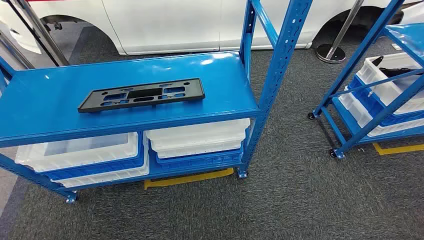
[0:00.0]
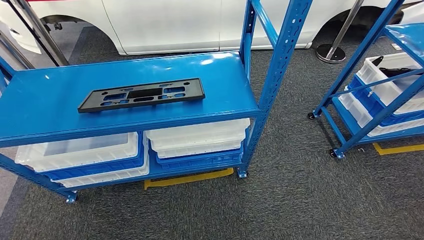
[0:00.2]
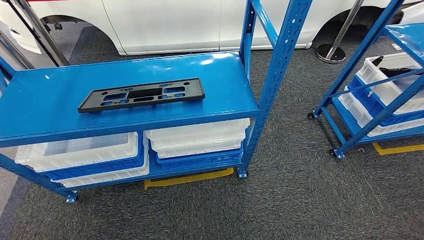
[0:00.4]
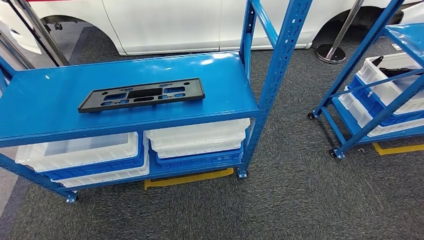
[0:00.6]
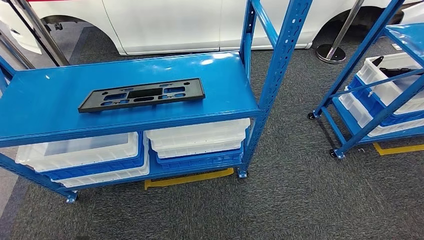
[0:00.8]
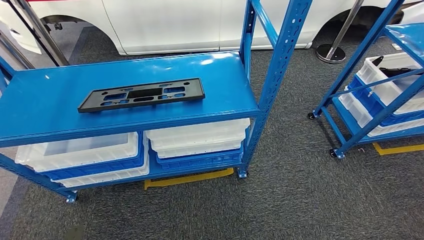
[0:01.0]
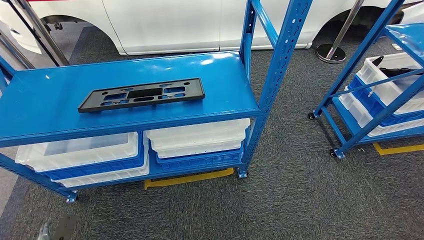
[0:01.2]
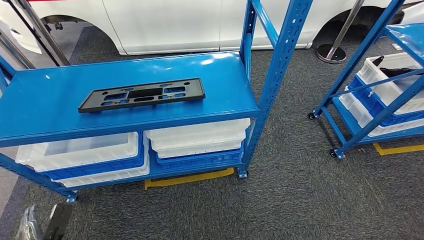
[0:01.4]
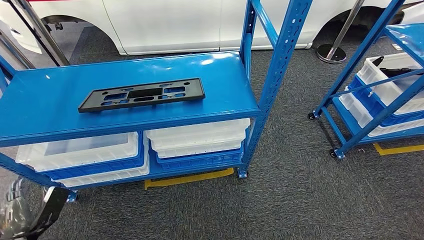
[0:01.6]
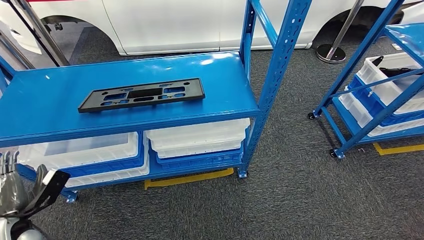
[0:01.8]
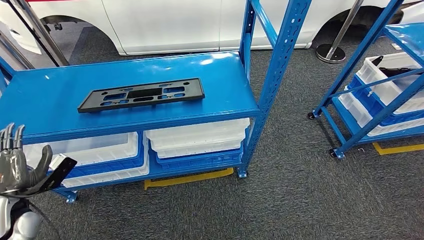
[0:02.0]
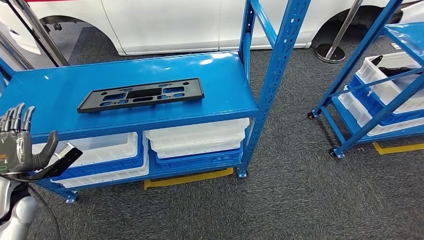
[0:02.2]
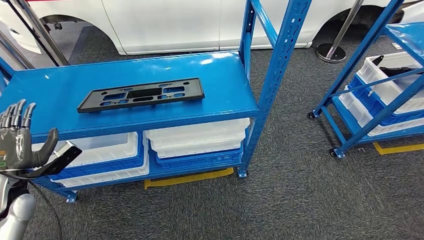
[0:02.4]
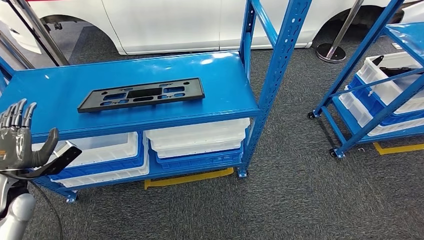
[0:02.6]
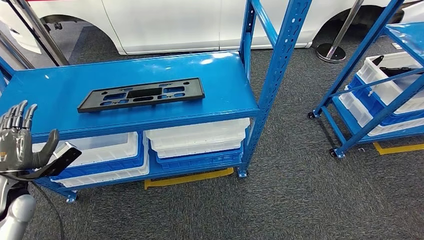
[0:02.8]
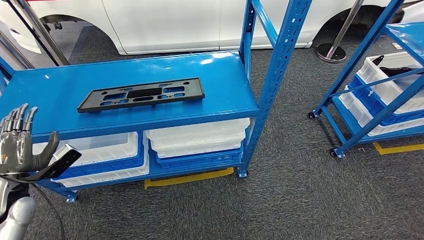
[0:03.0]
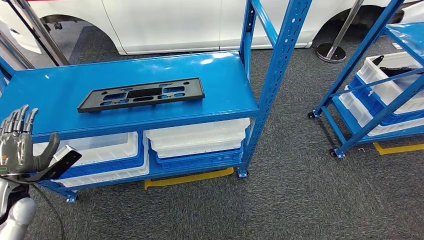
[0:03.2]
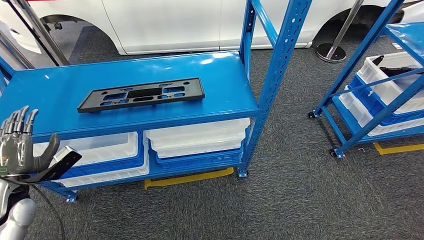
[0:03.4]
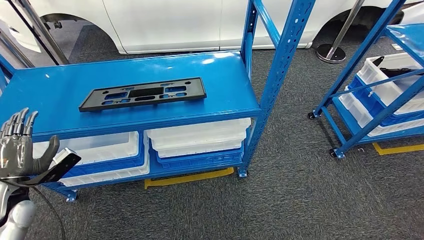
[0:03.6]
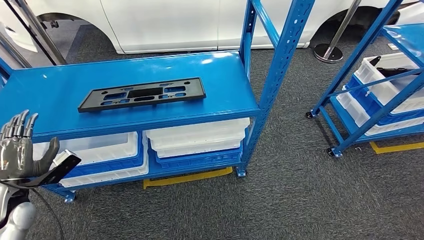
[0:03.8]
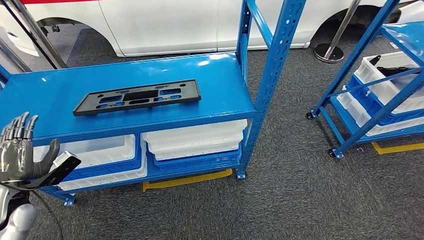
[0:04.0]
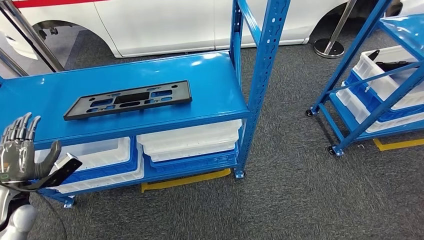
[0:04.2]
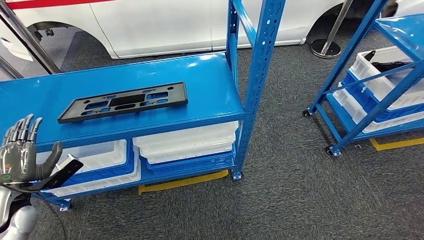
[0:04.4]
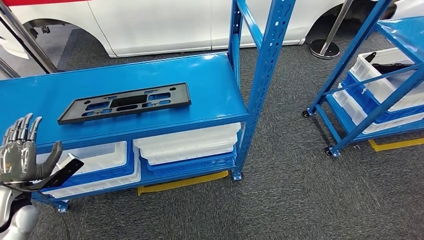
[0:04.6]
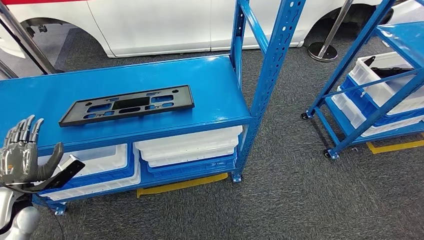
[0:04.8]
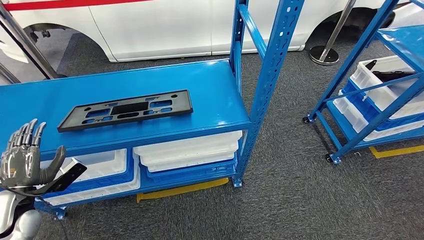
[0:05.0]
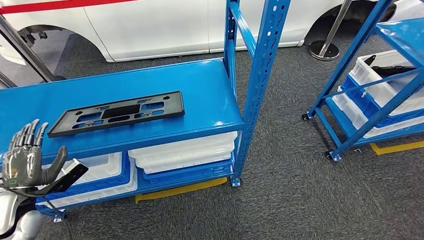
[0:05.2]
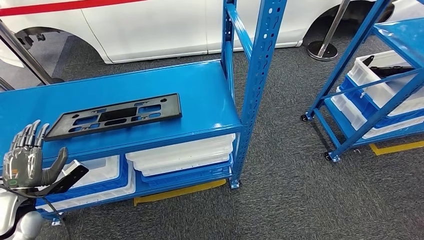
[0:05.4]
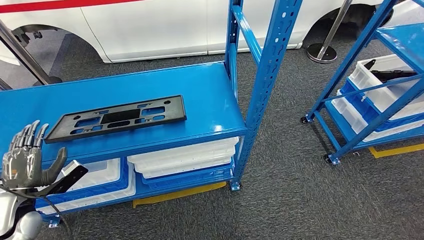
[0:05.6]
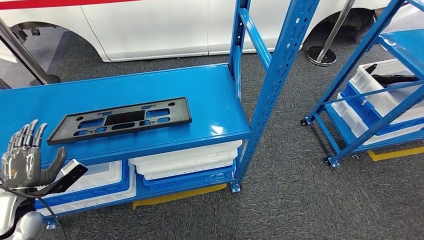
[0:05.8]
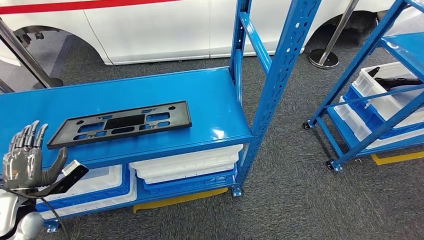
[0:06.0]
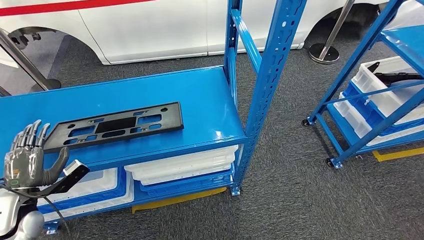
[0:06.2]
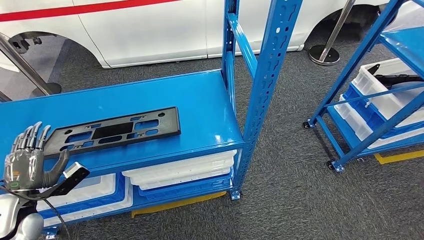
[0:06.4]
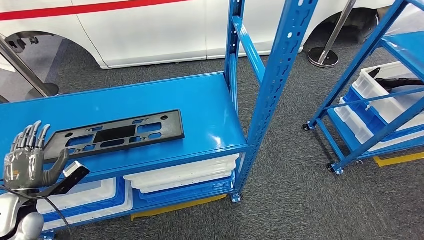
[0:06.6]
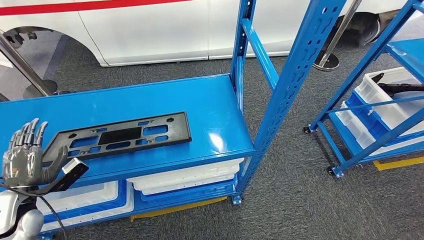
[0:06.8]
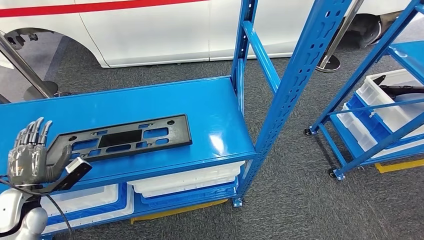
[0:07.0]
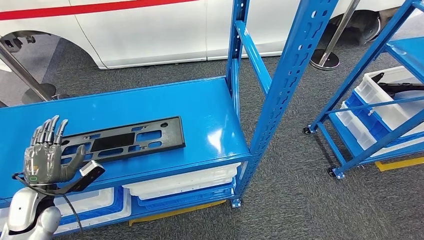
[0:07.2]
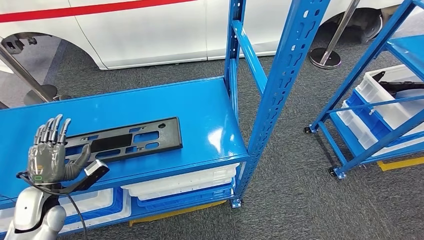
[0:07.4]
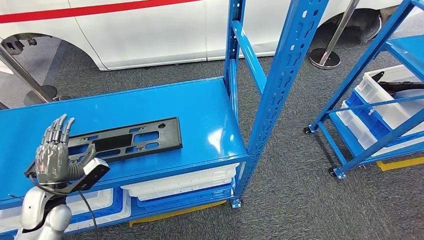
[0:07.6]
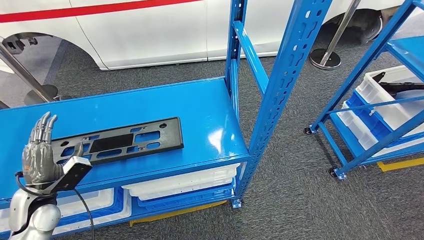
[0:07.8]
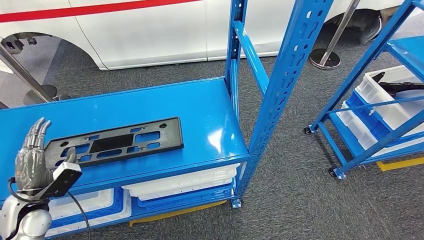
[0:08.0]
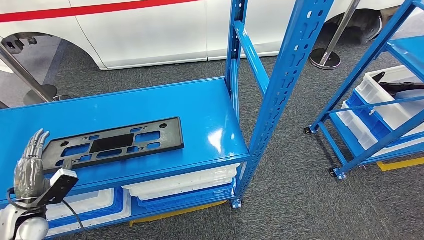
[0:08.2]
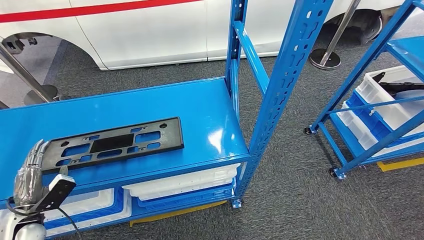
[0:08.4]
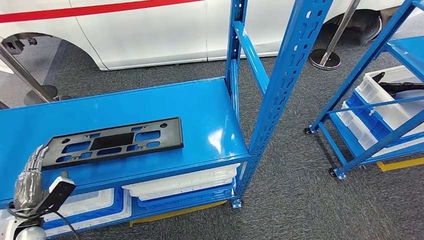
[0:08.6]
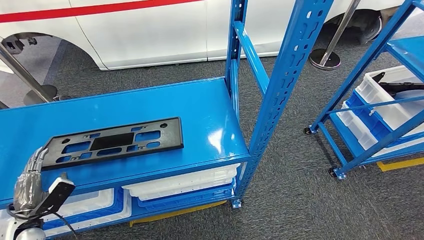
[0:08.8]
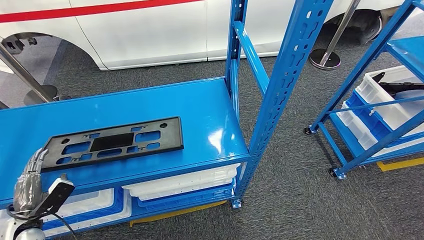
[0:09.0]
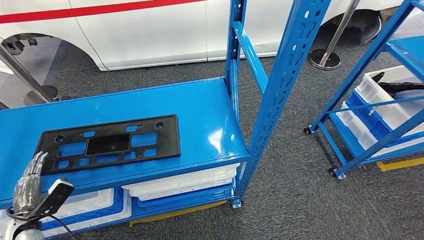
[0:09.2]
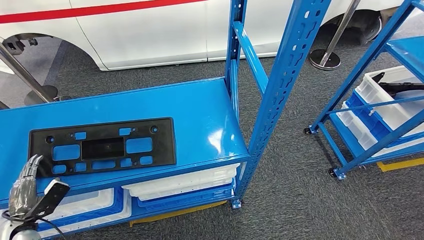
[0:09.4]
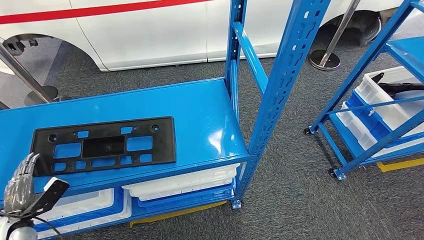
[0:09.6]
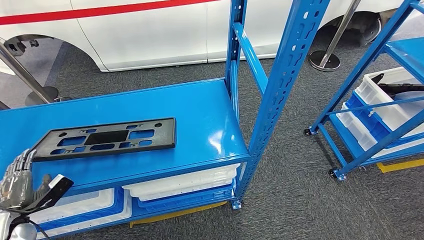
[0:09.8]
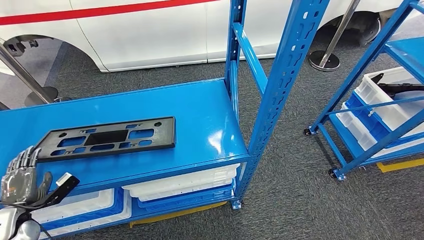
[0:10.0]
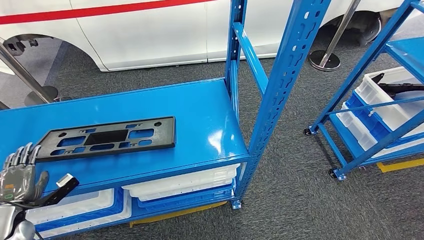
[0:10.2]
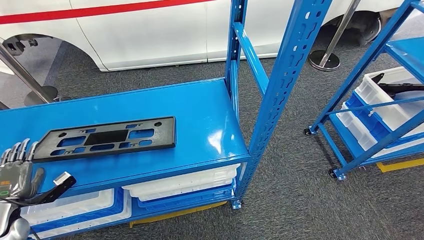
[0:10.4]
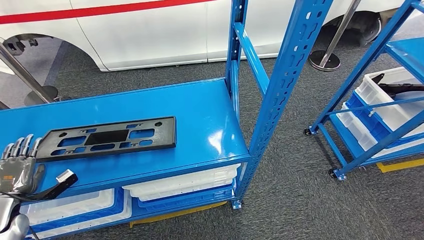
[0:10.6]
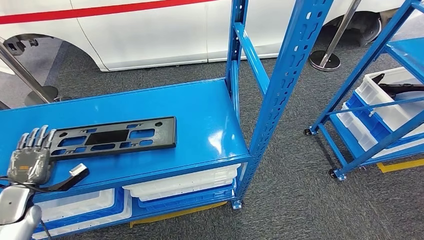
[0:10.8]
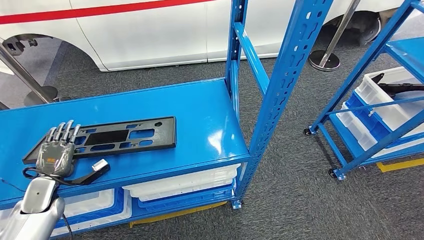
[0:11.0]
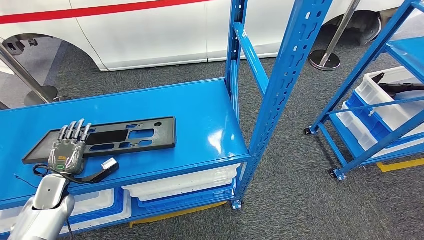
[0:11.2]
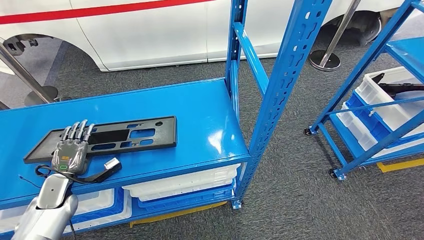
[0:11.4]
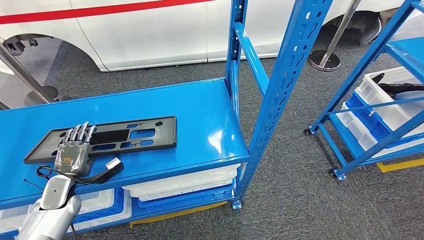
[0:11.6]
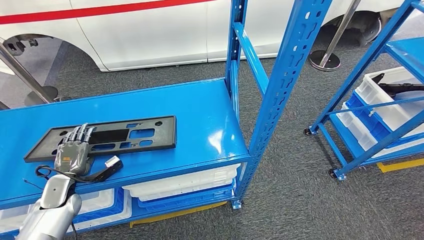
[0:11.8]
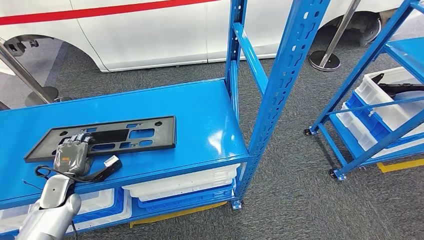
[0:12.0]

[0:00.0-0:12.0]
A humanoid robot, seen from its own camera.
0:01.6 to 0:03.0: The left hand is displaced upward and forward by roughly 15 cm.
0:07.6 to 0:09.0: The left hand travels to the left, downward and backward by about 10 cm.
0:09.0 to 0:10.4: The left hand heads to the left, covering approximately 5 cm.
0:10.4 to 0:12.0: The left hand shifts roughly 15 cm to the right and forward.

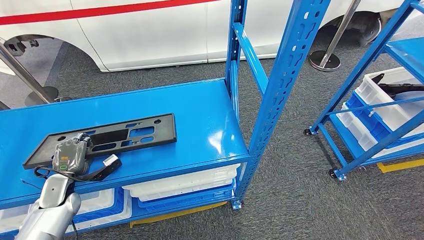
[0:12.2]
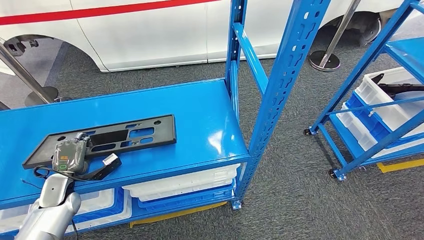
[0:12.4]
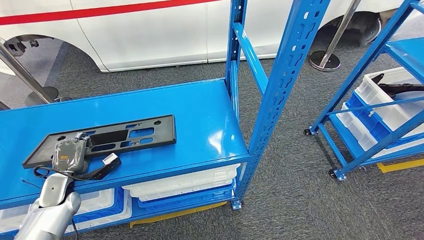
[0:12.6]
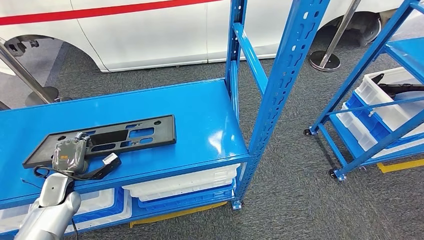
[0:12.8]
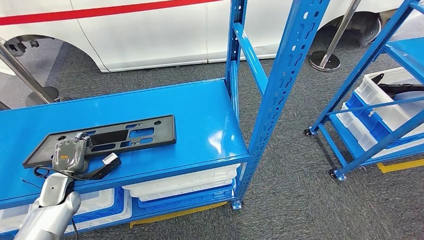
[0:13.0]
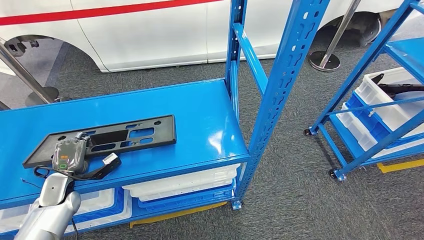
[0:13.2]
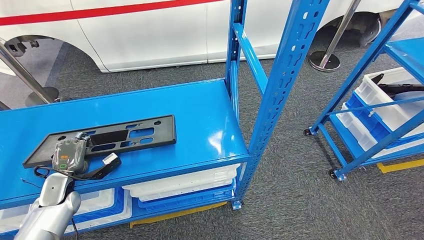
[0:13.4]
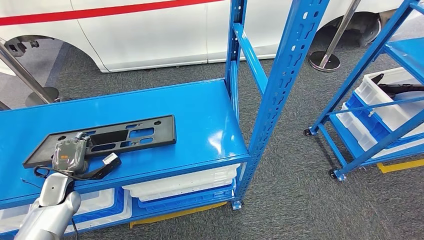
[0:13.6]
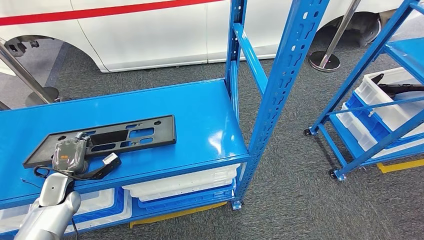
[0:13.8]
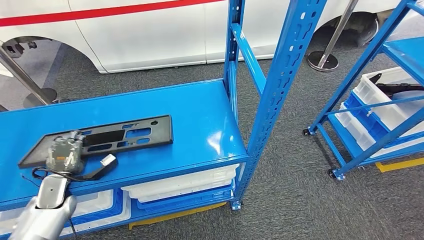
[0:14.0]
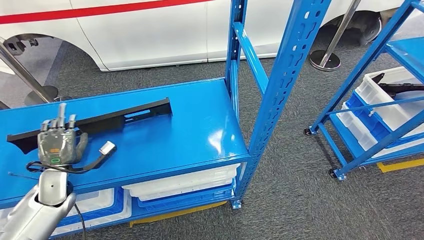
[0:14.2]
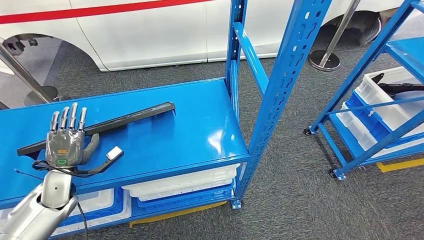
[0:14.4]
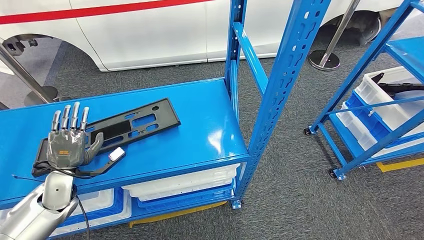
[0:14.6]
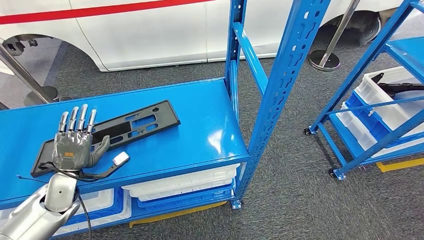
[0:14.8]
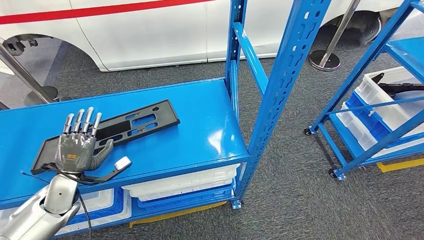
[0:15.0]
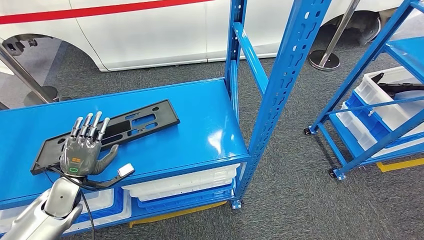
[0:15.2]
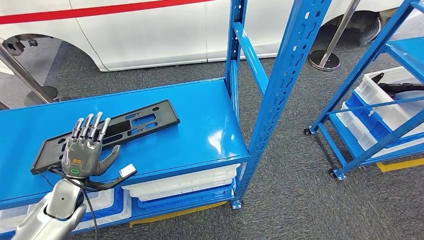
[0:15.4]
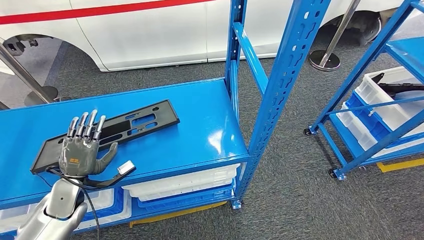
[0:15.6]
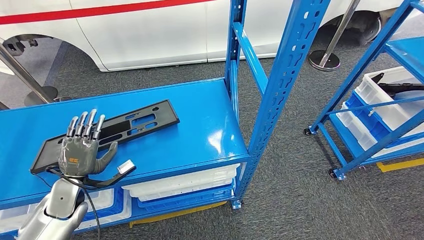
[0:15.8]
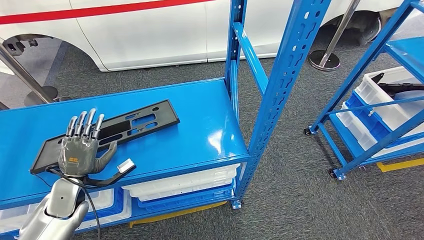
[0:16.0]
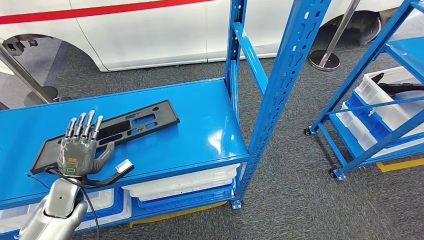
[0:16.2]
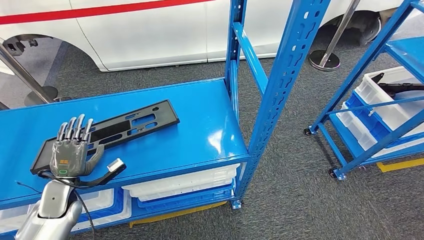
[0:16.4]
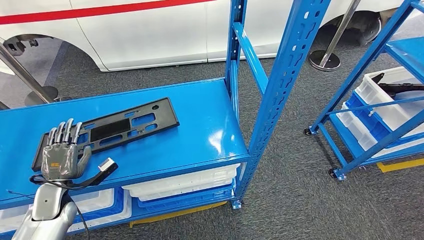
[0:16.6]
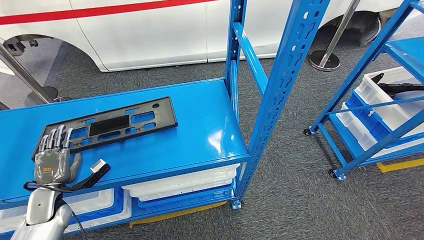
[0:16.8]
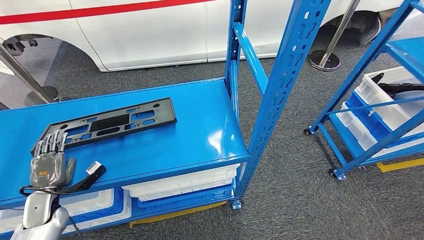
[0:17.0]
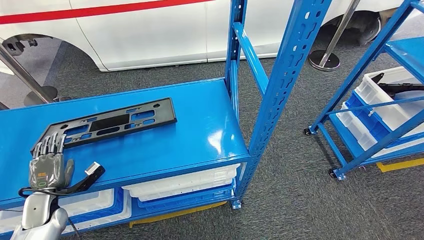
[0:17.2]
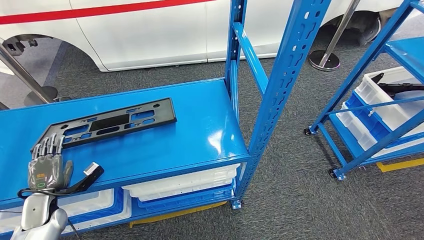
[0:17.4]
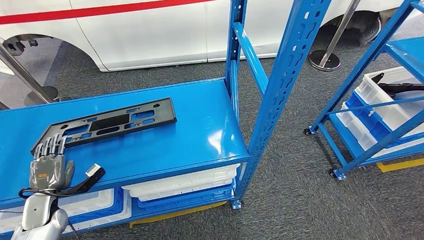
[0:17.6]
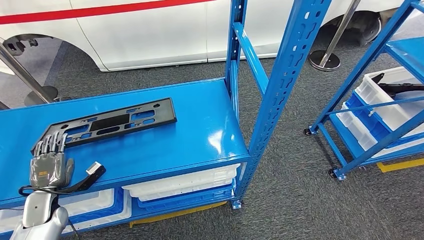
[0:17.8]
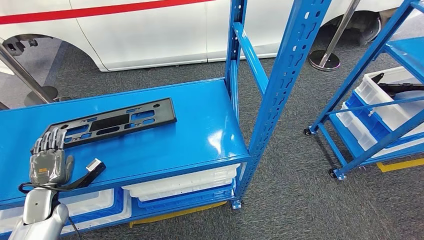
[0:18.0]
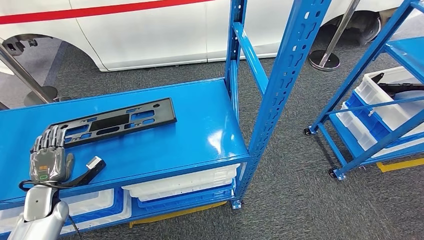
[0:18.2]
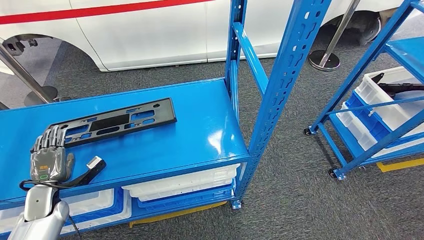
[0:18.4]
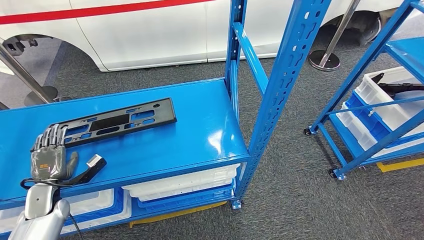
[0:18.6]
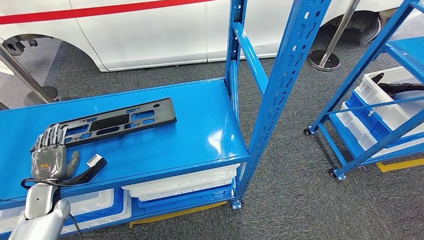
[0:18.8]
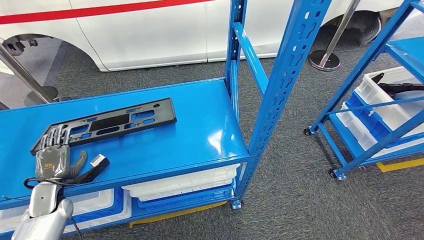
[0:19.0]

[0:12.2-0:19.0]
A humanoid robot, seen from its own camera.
0:12.2 to 0:13.6: Both hands stay put.
0:13.6 to 0:15.0: The left hand travels to the right by some 5 cm.
0:15.0 to 0:16.2: The hands make only small movements.
0:16.2 to 0:17.6: The left hand moves to the left and downward, approximately 10 cm.
0:17.6 to 0:19.0: There are only small adjustments of the hands.
